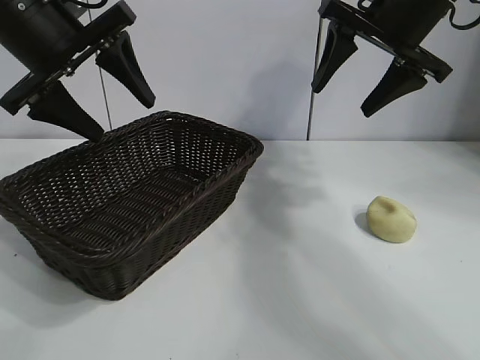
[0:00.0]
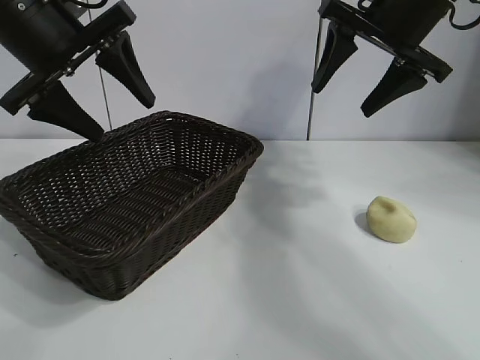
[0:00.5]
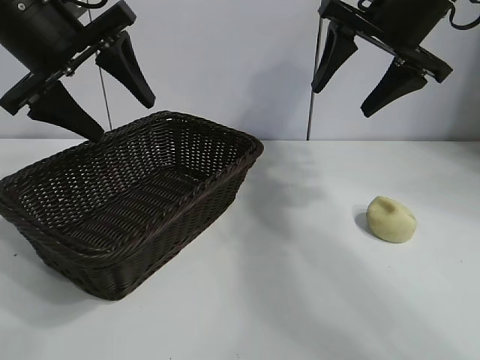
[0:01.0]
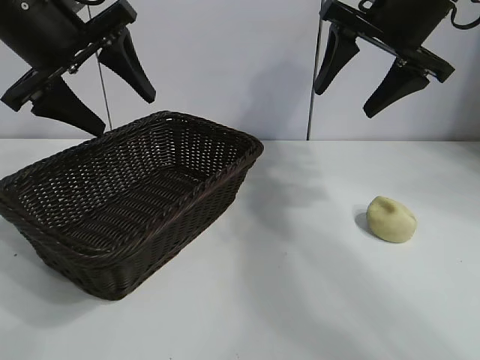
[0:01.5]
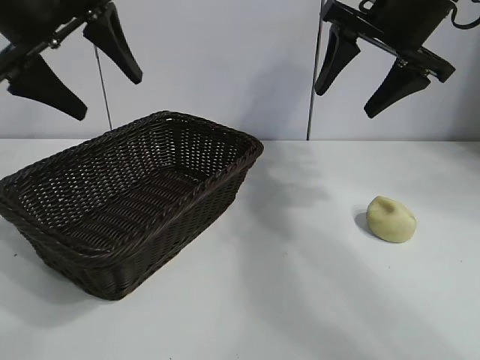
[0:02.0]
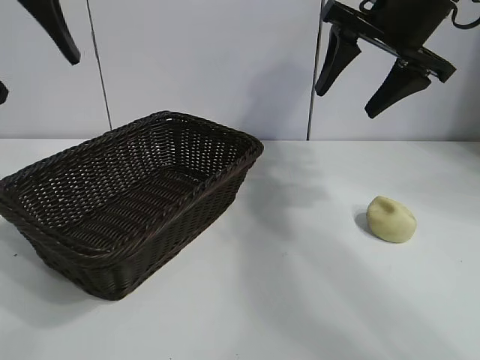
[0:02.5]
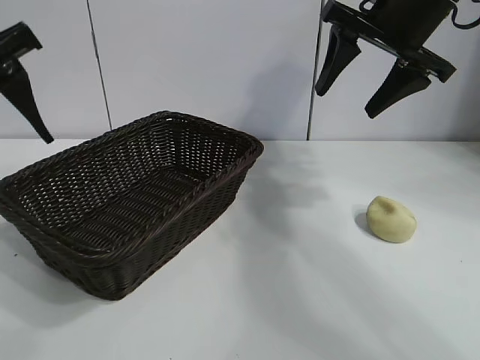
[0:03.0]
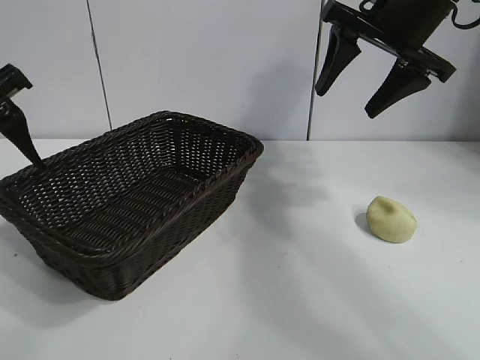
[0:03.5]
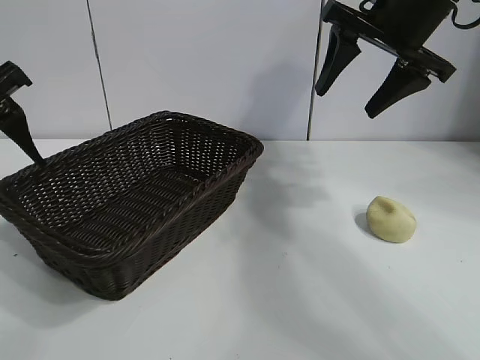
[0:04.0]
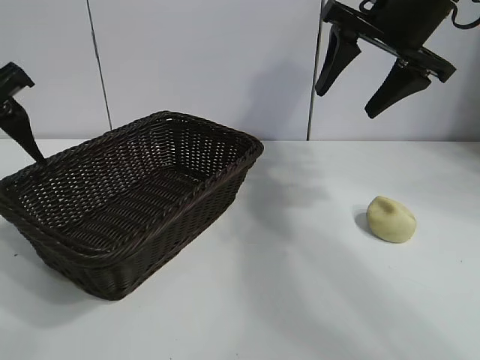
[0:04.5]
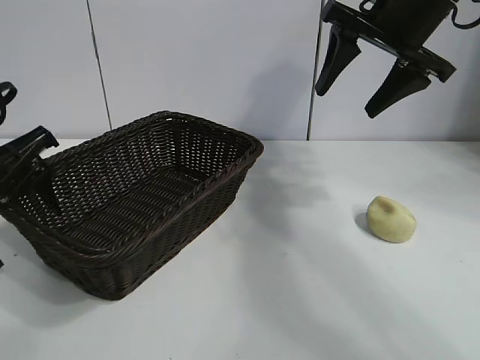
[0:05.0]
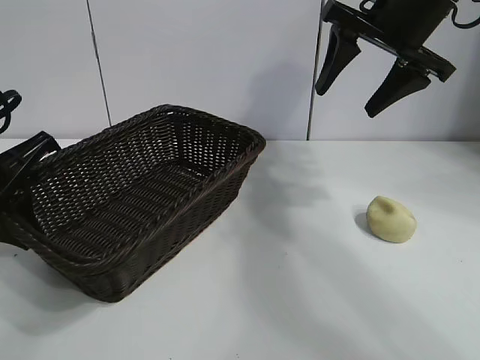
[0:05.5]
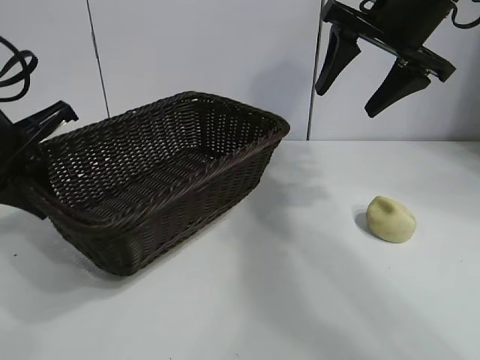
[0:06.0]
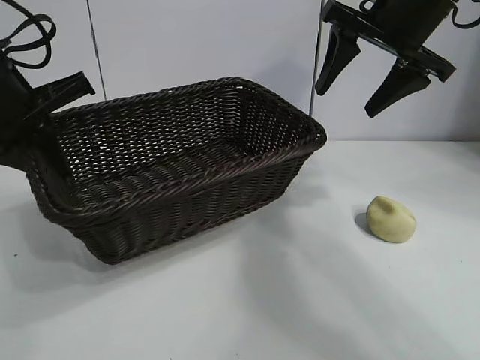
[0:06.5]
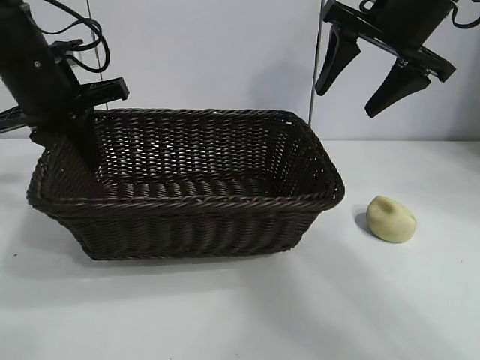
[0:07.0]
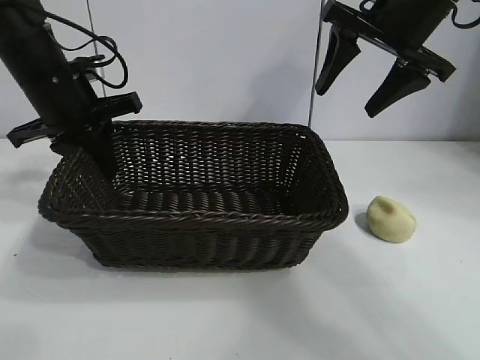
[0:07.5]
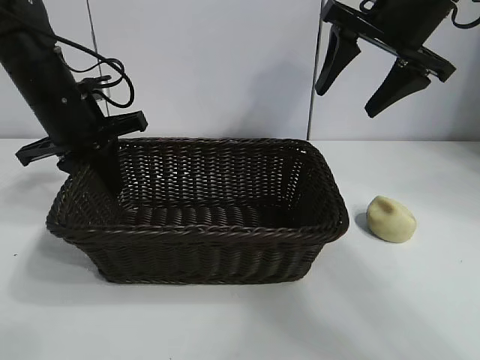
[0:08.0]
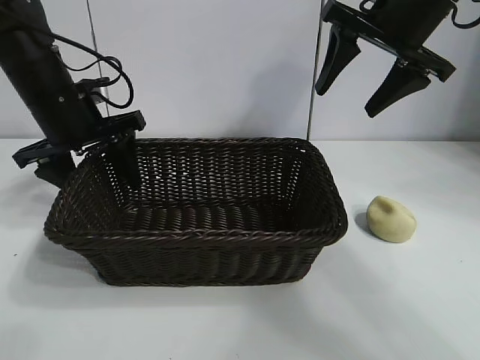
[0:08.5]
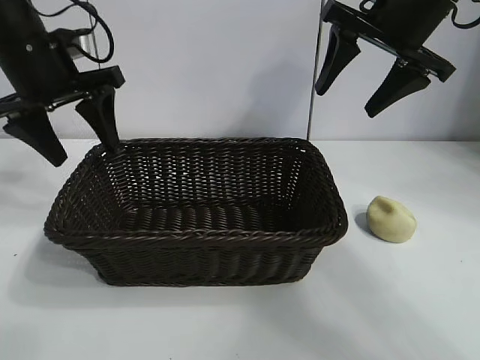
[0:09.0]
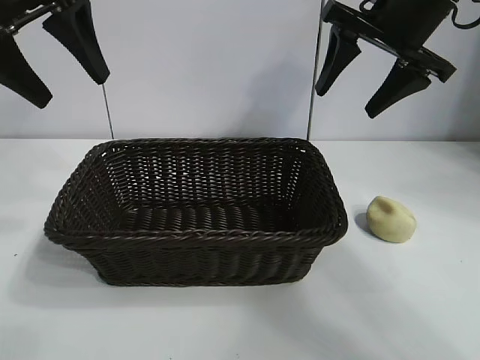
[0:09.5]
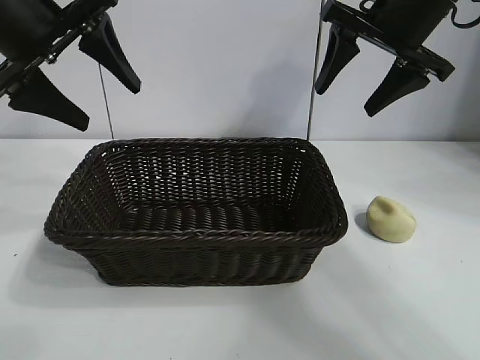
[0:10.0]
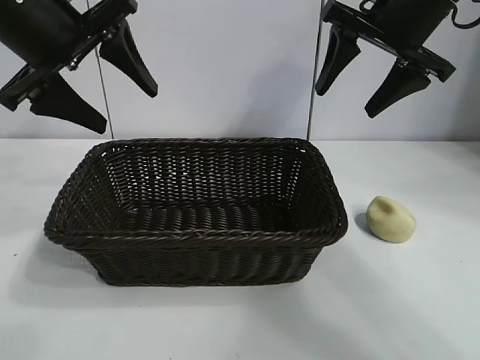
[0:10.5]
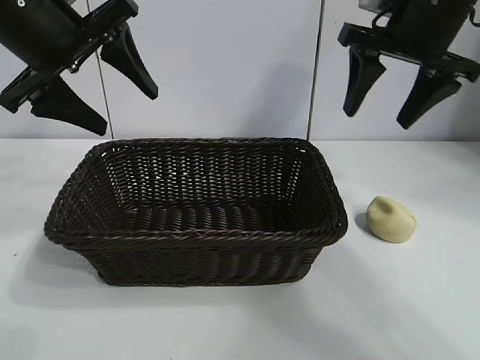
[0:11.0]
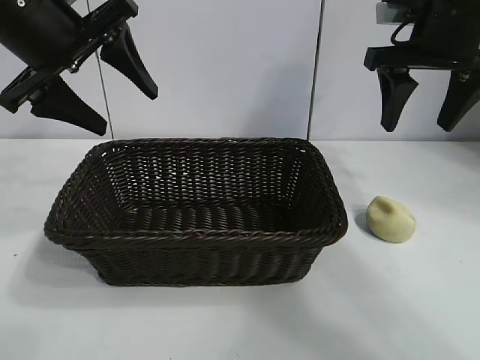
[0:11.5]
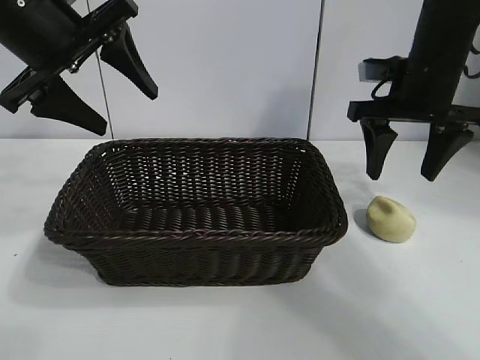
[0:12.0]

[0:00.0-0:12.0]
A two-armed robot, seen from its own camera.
Task of the whole recording: pick up the egg yolk pastry and put it into the basket.
Step, 0:01.5 to 0:05.5: Grasp the basket with left gripper.
Step, 0:06.0 to 0:08.5: Place the basket in the center of view with left gripper.

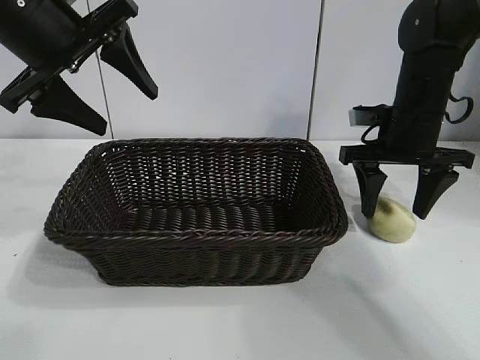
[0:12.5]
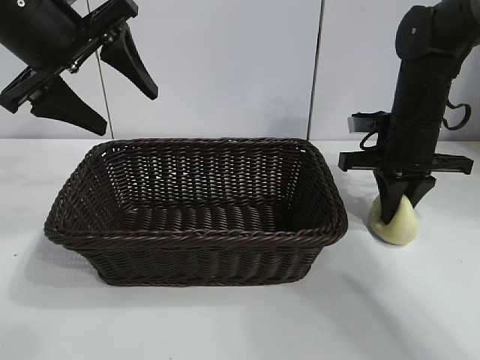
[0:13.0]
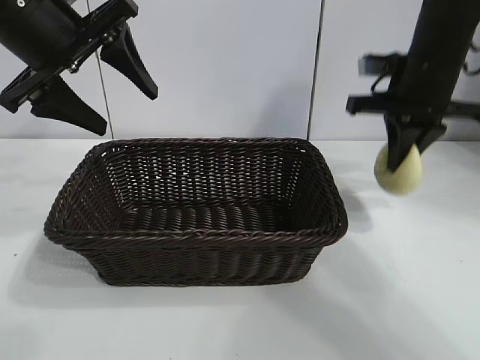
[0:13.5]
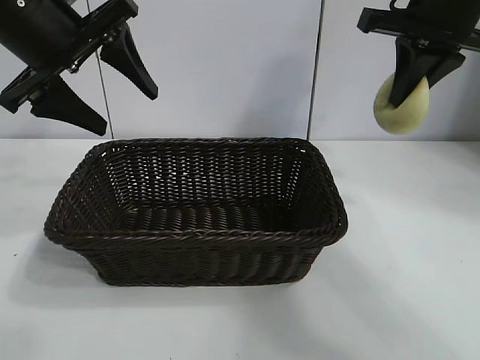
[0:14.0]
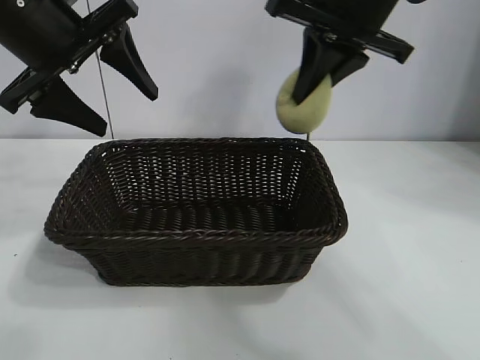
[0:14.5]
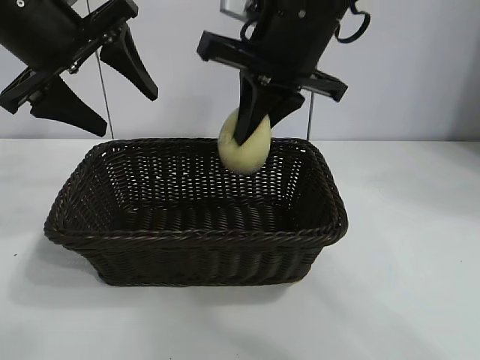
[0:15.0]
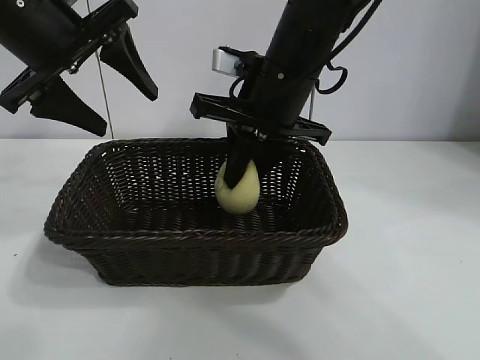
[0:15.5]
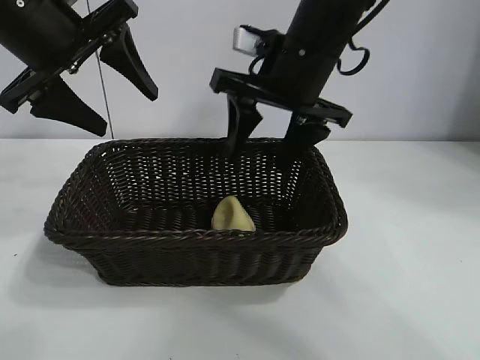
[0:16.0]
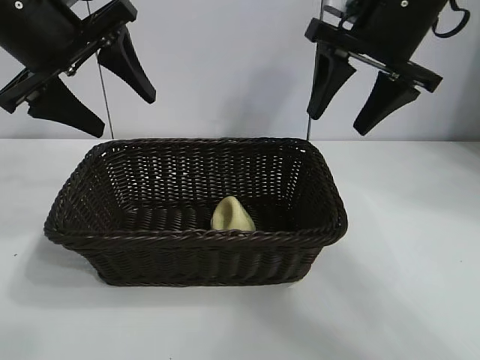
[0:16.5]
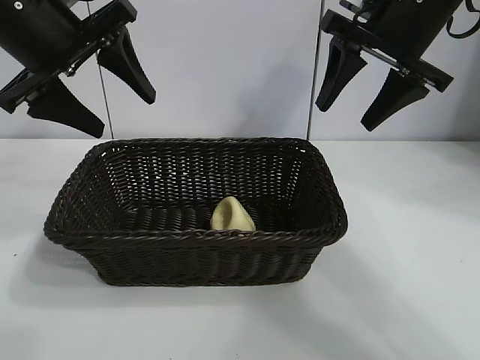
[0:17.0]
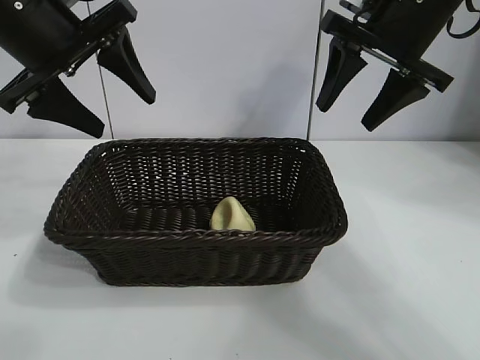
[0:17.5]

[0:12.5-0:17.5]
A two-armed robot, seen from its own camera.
Task of the whole recording: pick up the egg yolk pastry and put it into the basket.
Step, 0:13.0 to 0:15.5: Place the egg yolk pastry in the basket with right gripper.
